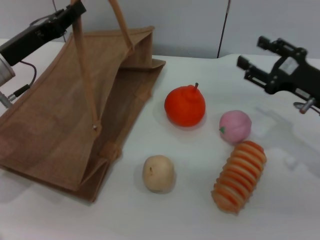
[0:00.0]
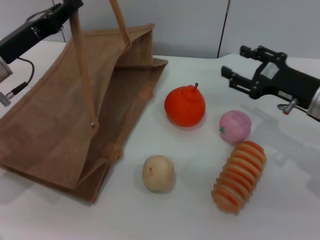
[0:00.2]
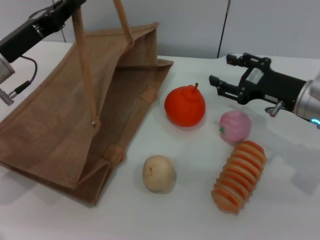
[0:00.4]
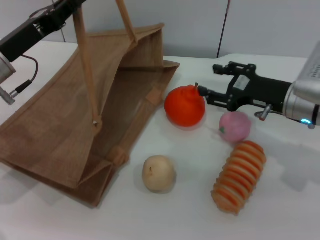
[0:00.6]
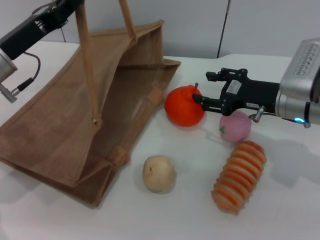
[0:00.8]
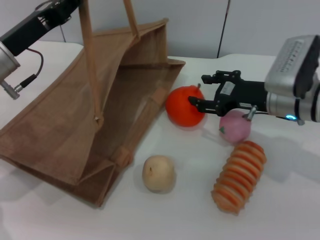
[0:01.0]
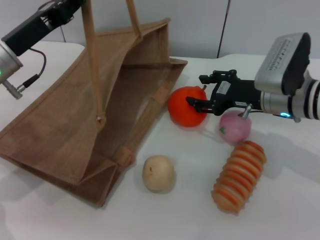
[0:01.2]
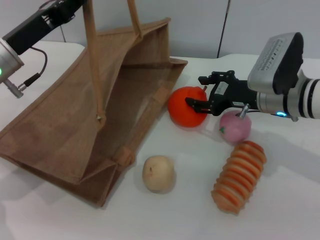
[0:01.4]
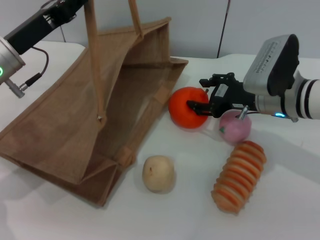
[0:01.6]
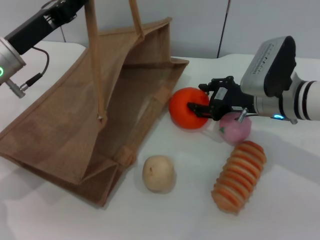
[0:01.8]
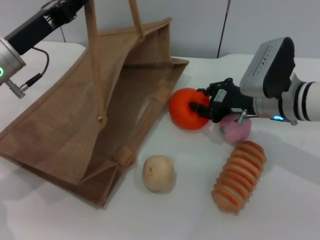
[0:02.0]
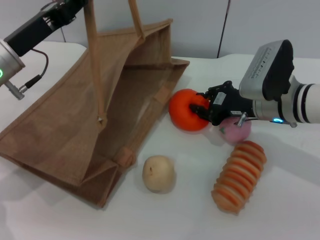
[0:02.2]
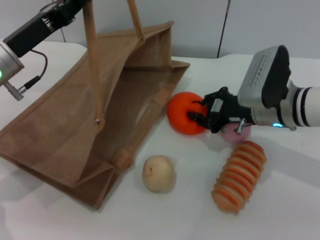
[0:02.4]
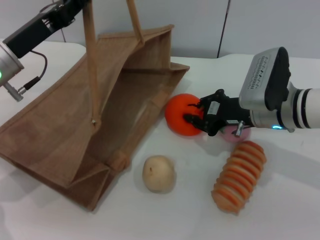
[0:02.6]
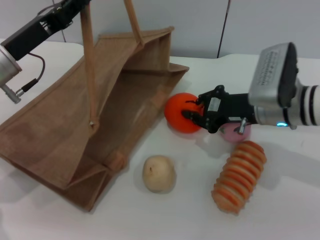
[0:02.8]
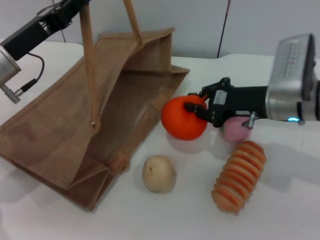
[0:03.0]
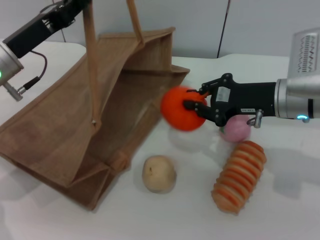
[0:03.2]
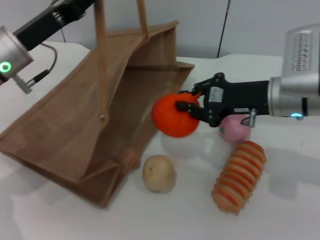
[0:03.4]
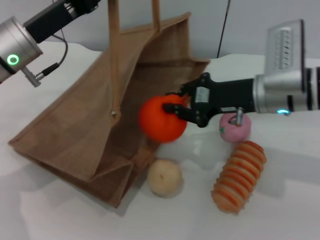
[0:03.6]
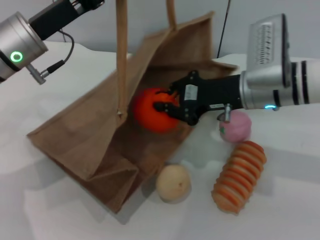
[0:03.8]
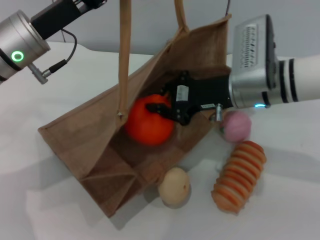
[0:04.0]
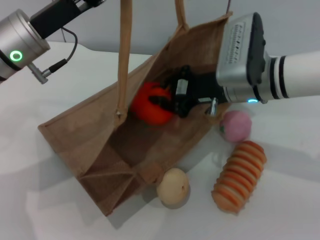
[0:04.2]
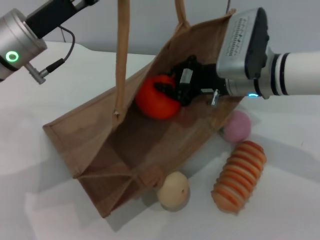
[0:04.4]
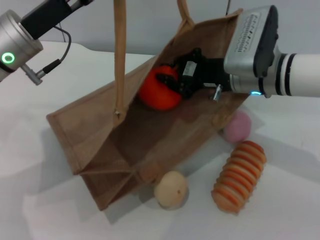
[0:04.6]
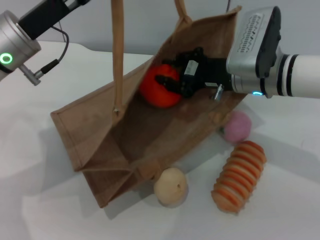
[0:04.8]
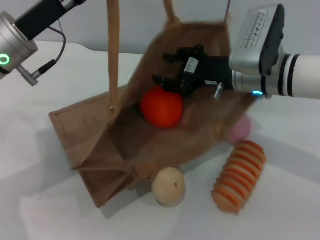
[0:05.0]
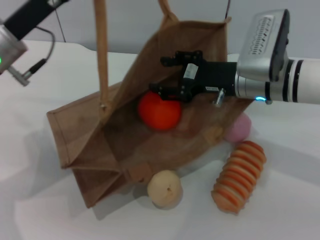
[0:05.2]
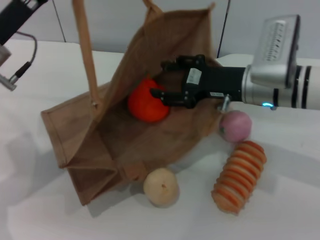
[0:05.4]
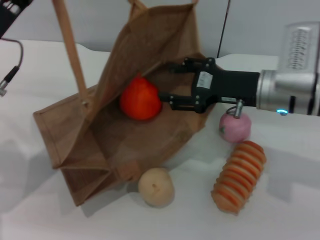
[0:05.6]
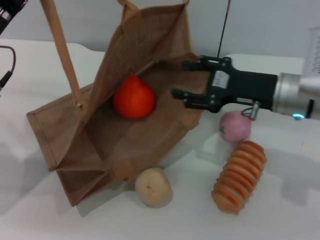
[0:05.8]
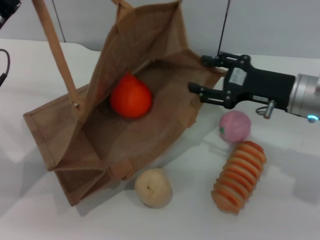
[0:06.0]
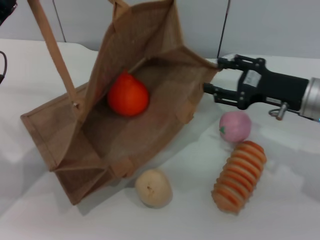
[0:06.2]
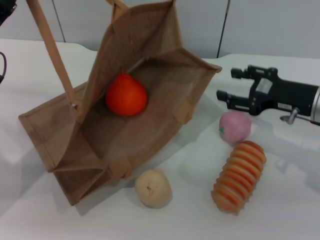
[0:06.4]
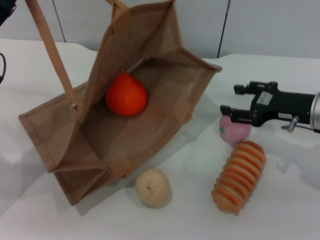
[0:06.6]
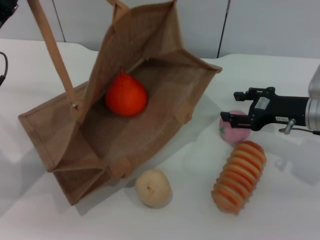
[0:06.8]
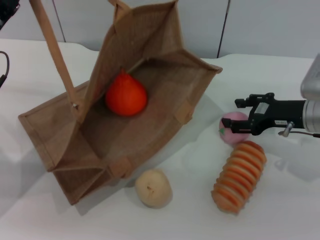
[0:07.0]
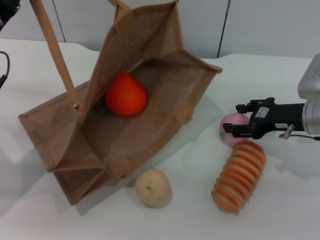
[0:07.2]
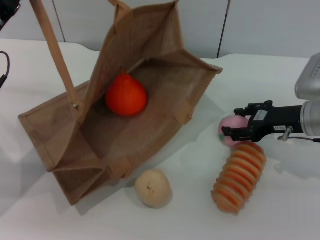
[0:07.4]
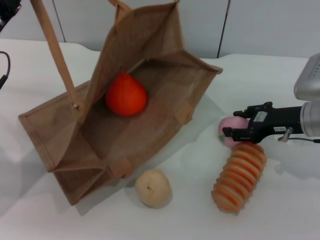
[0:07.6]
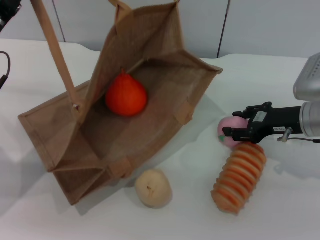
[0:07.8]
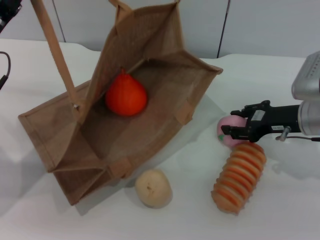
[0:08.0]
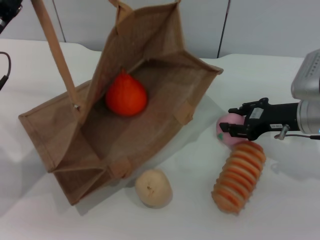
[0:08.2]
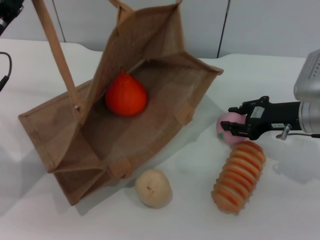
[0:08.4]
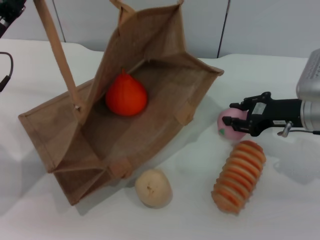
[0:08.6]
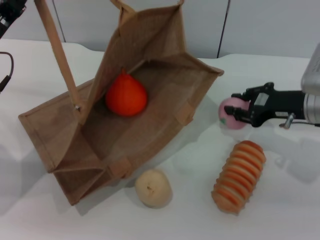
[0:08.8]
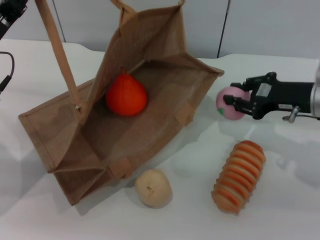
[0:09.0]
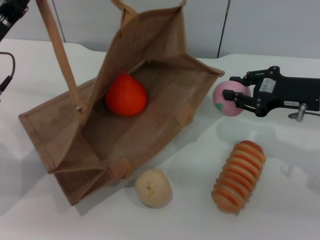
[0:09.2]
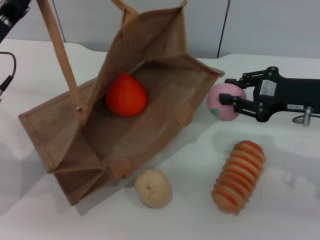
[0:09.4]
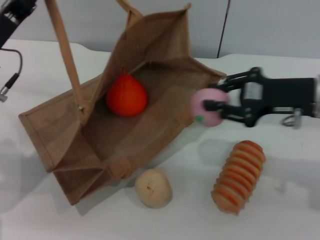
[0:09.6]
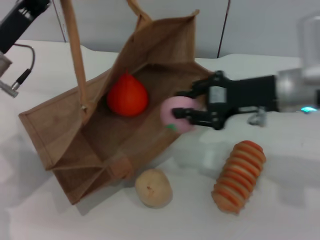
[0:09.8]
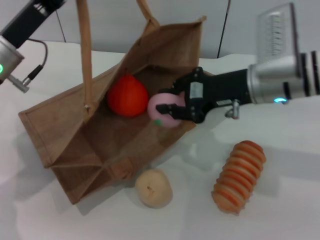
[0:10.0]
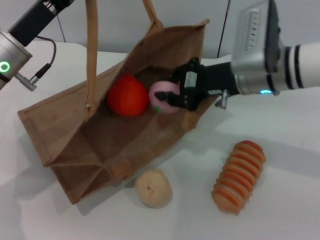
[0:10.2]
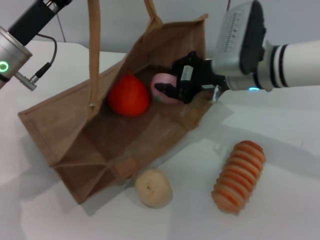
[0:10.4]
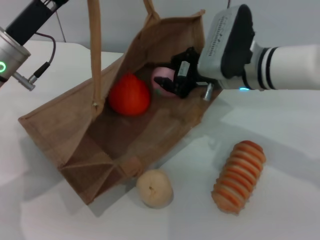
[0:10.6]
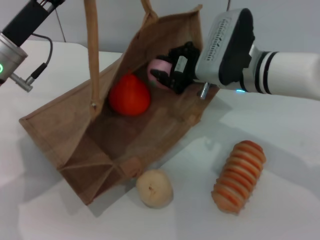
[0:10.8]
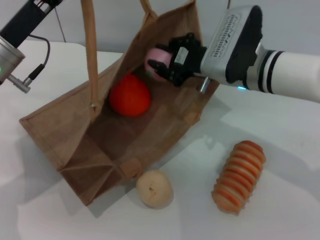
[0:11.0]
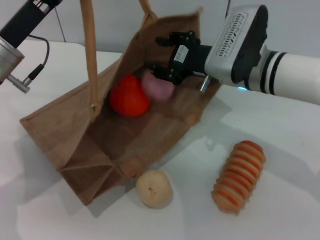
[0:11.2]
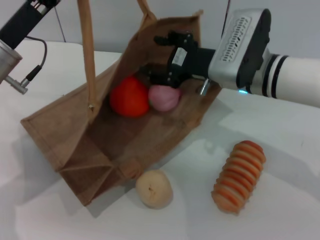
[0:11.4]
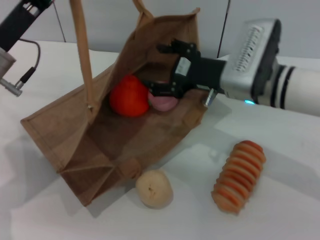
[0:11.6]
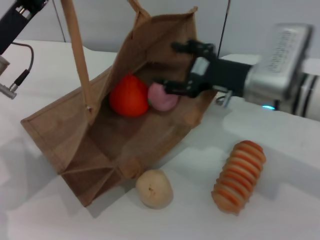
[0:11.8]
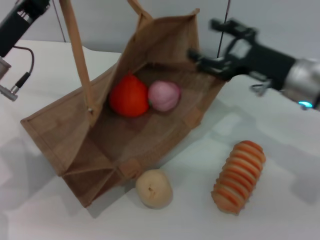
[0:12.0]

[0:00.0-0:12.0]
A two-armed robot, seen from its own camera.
Task of the whole recording: pick up the orange and peach from the table and place it in the brown handbag.
Step, 0:00.0 to 0:03.2: Pick up the orange with the right gripper.
Step, 0:03.4 to 0:05.6: Place the orange into the woven bag with the right gripper.
Step, 0:05.8 to 0:09.0: Pick up the peach with the right gripper.
Step, 0:09.2 to 0:11.8: Place the peach into the woven bag with the right gripper.
0:00.0 to 0:01.6: The right gripper is displaced to the left by approximately 10 cm.
0:01.6 to 0:03.0: The right gripper closes its fingers.
0:03.0 to 0:04.4: The left gripper changes place by some 5 cm. Meanwhile the right gripper is displaced to the left by about 5 cm.
0:04.4 to 0:06.0: The left gripper heads to the left, covering roughly 5 cm. Meanwhile the right gripper is displaced to the right by about 10 cm, and opens.
0:07.6 to 0:09.0: The right gripper closes its fingers.
0:09.0 to 0:10.4: The left gripper moves about 5 cm. Meanwhile the right gripper goes about 15 cm to the left.
0:10.4 to 0:12.0: The right gripper moves to the right, about 10 cm, and opens up.

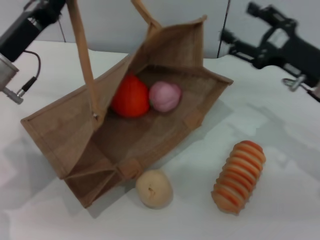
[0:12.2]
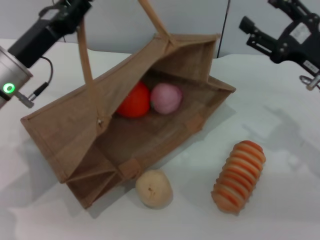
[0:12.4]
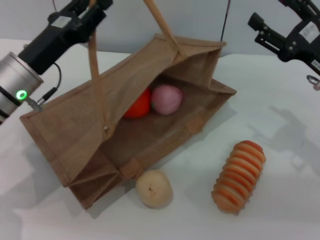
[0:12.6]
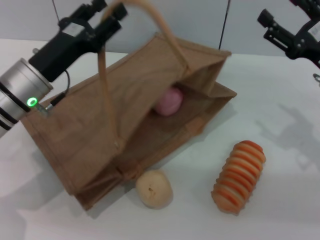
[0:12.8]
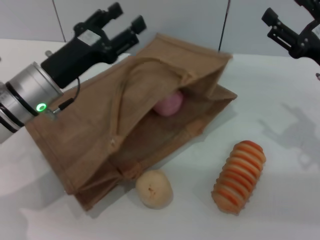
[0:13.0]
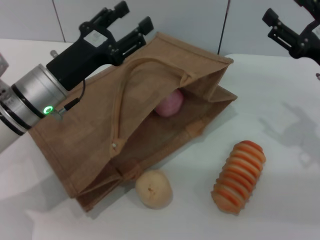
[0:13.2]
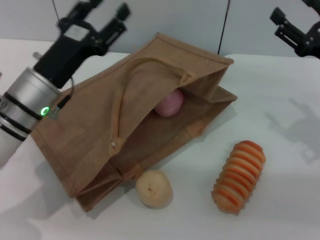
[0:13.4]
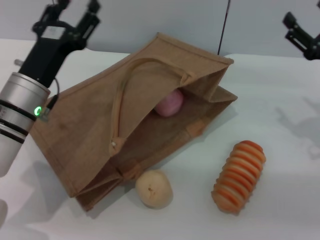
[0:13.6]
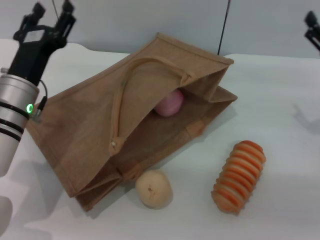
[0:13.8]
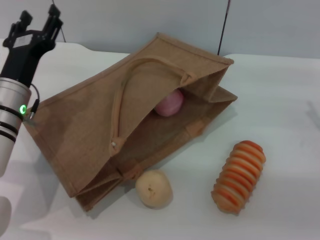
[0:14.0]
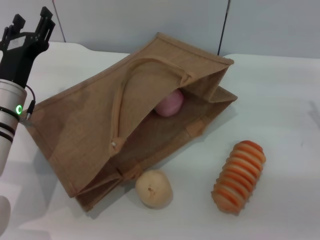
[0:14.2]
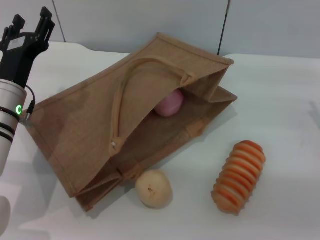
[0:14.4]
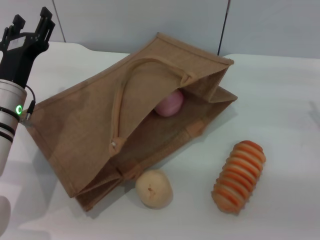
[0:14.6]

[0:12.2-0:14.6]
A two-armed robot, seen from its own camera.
Task of the whole recording: pick up the orange and peach from the table and place it in the brown handbag.
Step, 0:12.2 to 0:13.6: Lower the woven bag with the left gripper to close it.
0:12.2 to 0:13.4: The left gripper moves to the right, approximately 5 cm, and opens its fingers.
